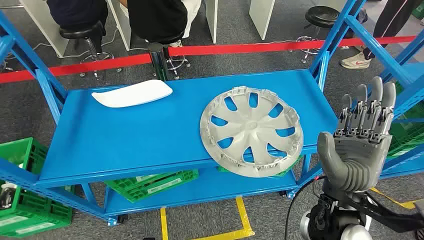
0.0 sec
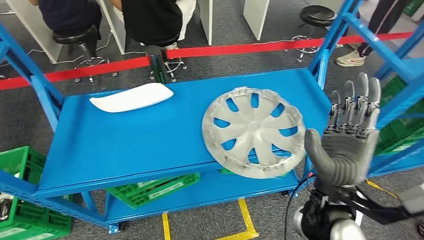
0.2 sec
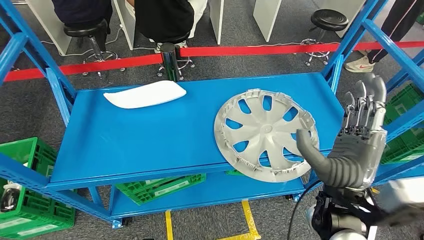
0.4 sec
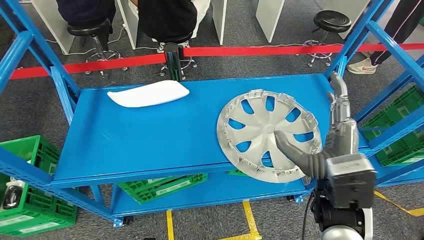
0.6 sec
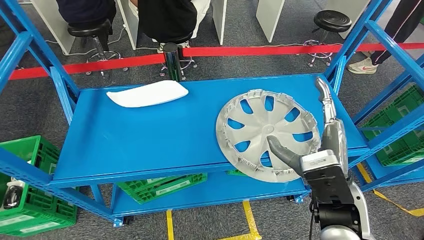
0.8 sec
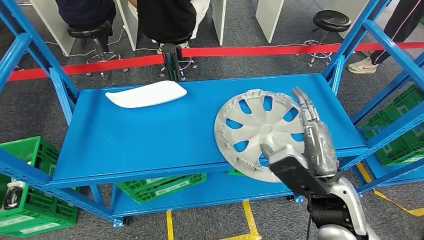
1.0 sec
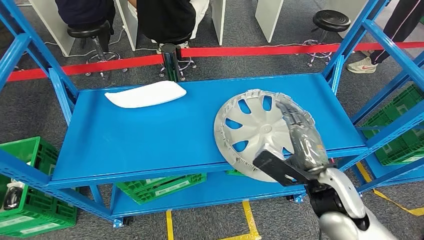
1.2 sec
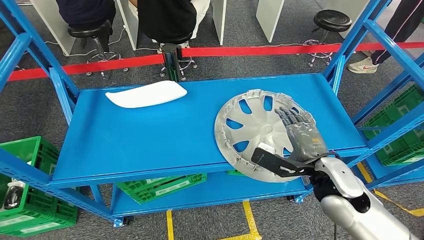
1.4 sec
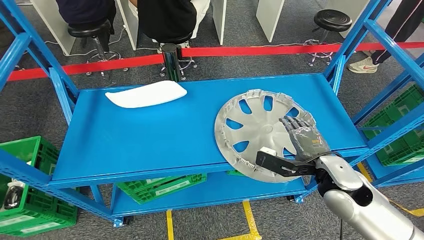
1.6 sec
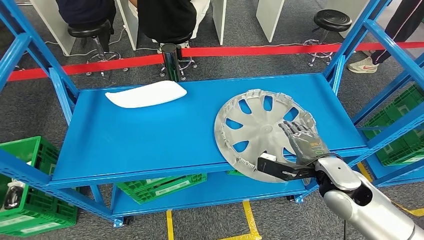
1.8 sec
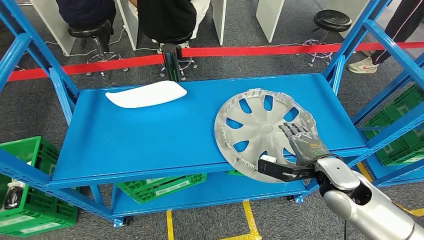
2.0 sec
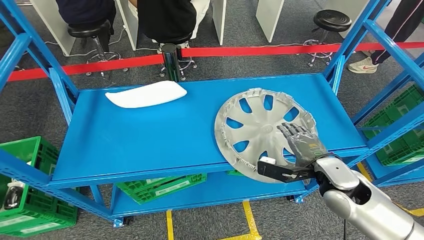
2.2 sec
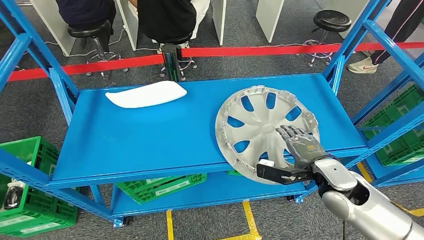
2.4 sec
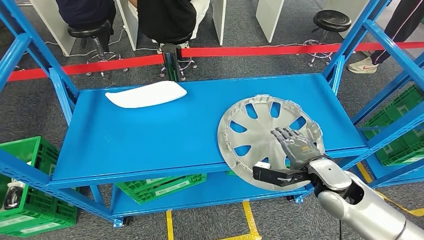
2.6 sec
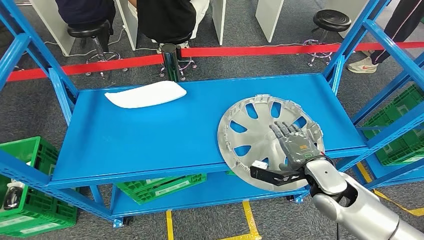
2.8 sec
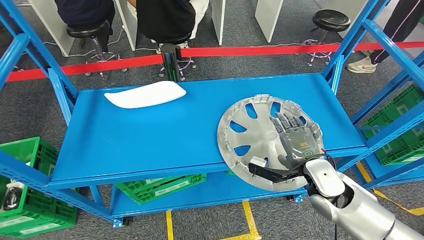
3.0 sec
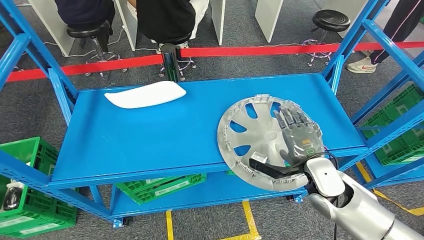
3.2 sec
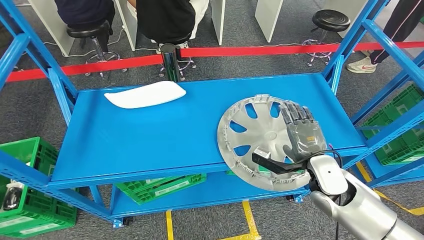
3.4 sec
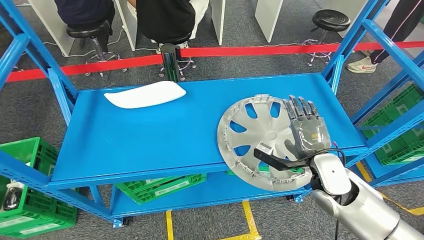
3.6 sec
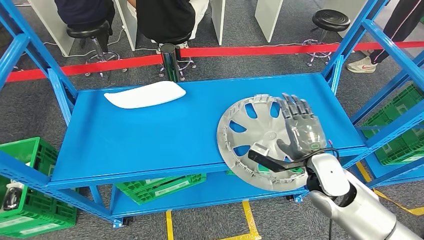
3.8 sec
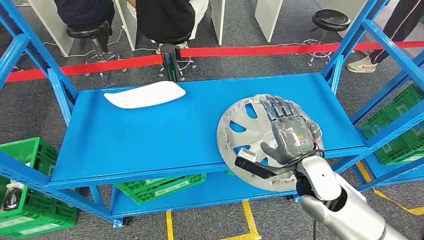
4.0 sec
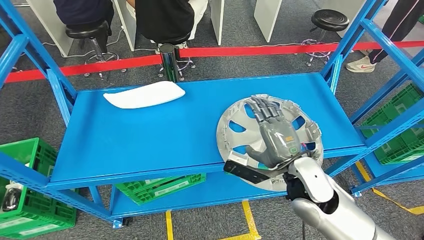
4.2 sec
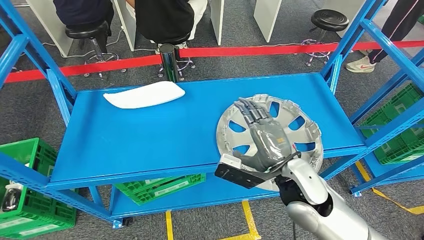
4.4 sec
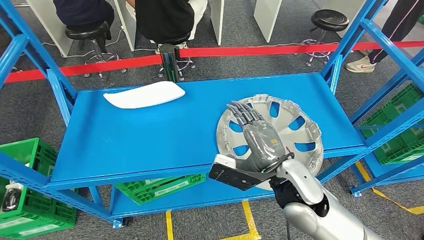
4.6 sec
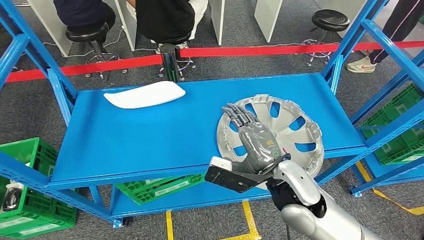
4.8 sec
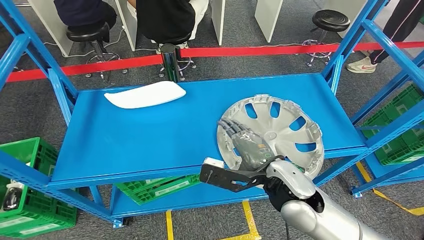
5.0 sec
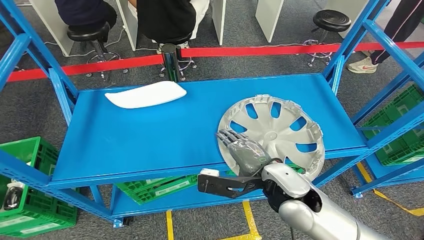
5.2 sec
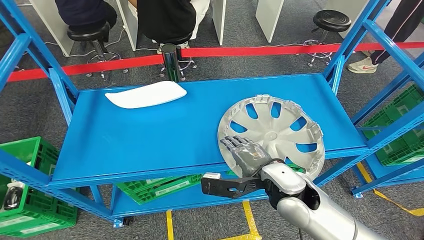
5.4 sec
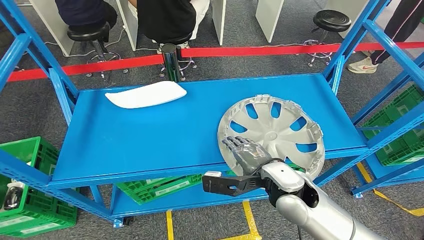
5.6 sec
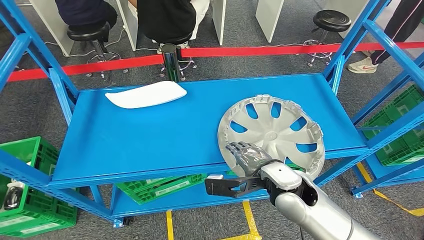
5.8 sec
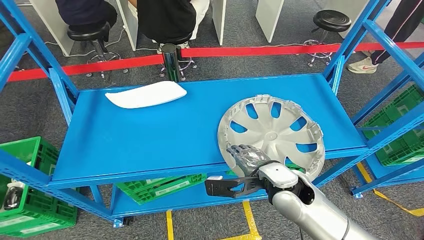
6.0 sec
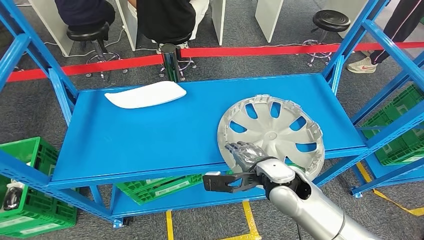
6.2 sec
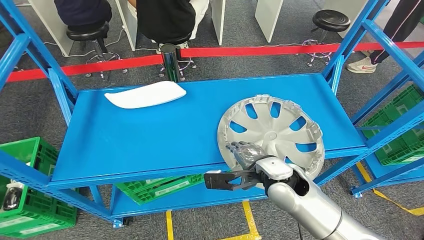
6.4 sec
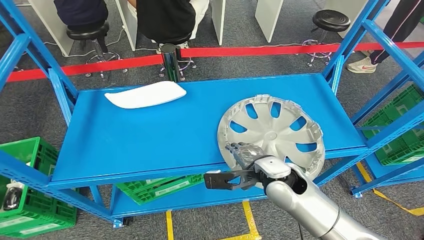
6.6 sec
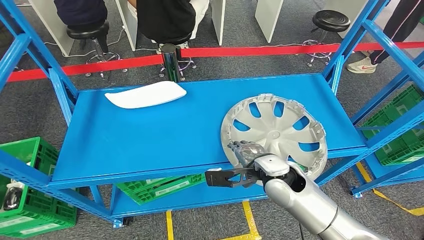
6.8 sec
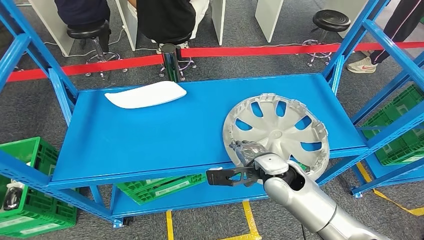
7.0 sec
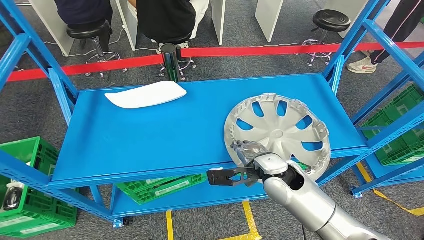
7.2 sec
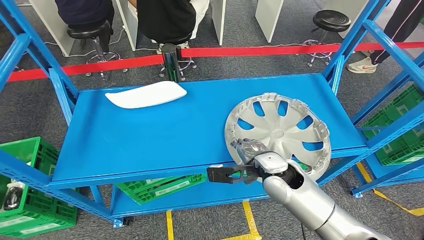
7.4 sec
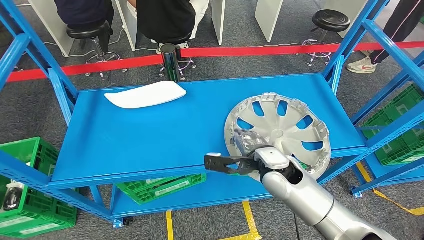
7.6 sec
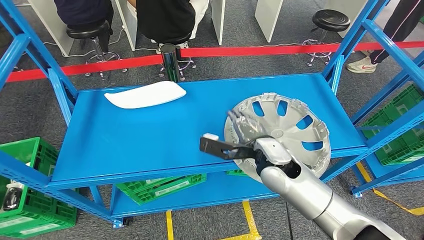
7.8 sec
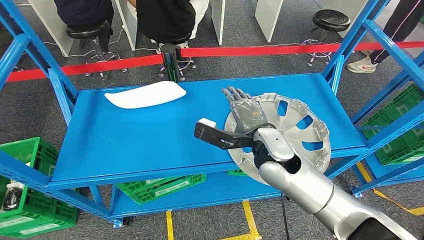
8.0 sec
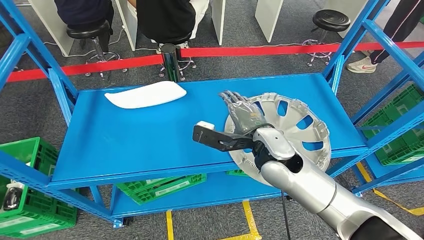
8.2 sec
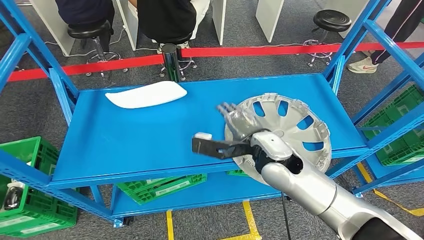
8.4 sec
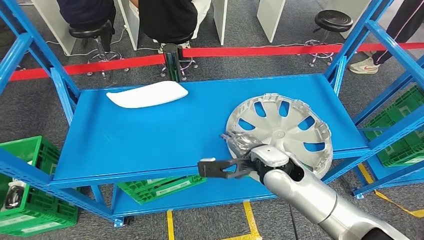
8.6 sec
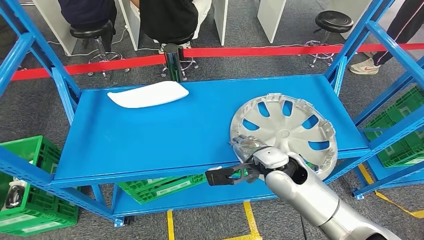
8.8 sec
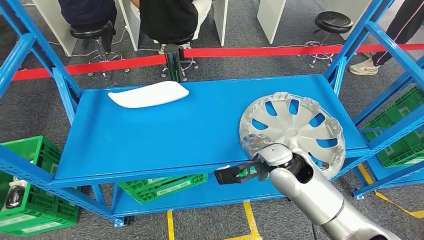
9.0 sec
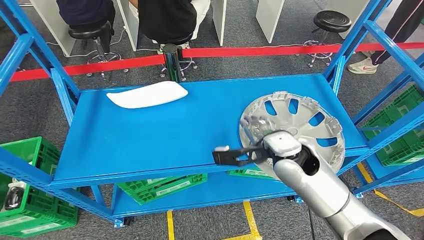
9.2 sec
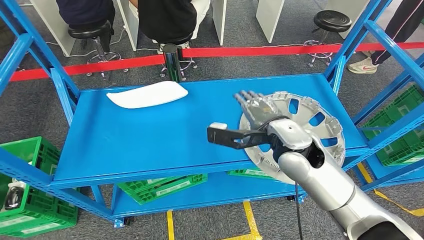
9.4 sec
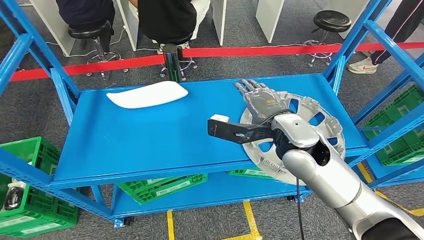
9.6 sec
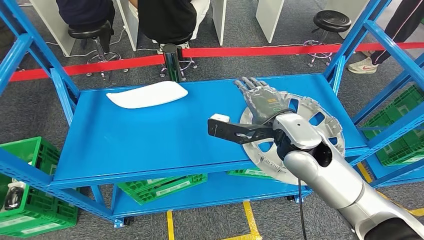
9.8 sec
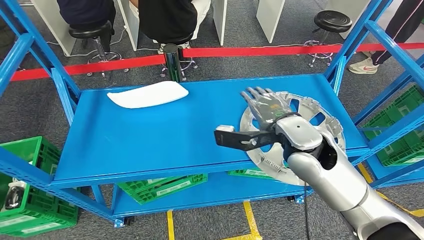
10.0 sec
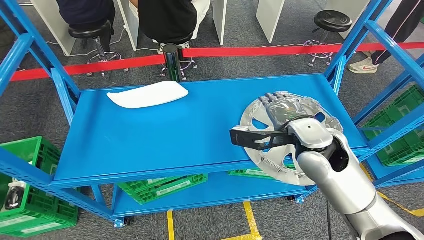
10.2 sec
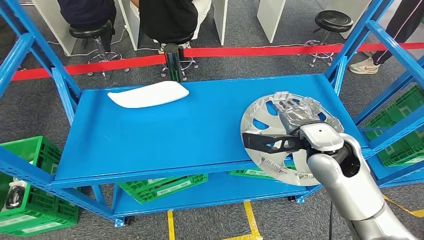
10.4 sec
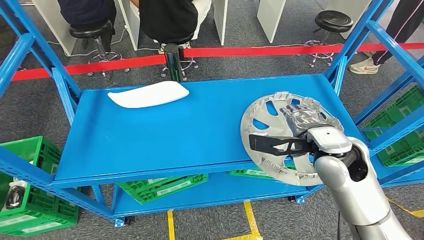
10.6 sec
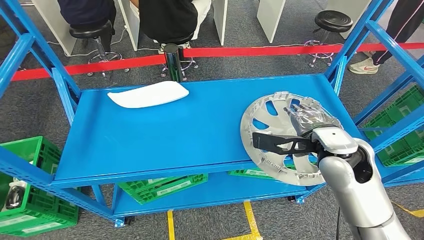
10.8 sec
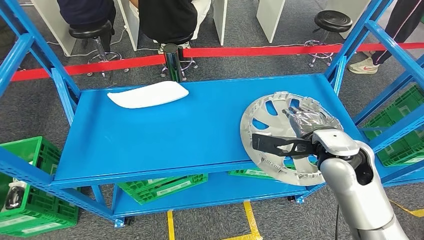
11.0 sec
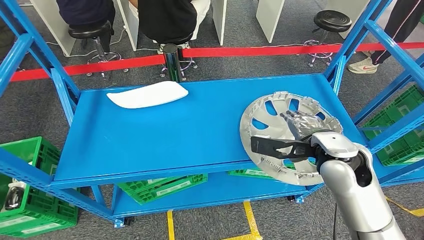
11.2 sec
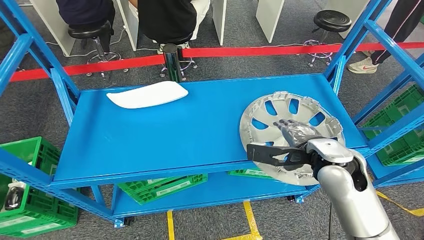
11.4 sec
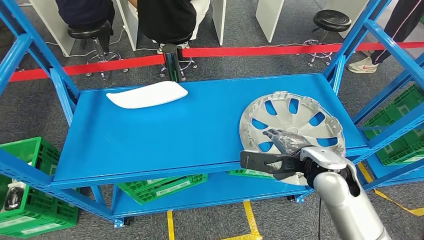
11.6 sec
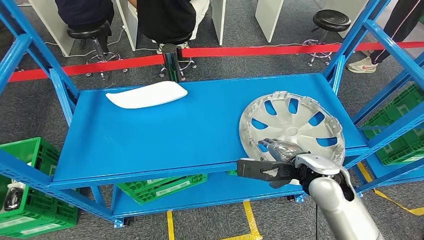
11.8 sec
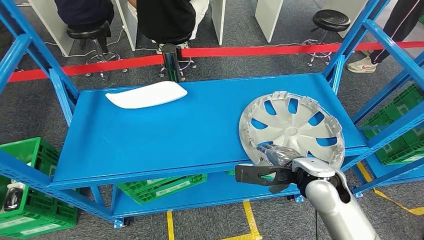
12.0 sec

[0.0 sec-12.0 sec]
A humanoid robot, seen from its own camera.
1.6 sec to 3.0 sec: The hands stay close to where they were, moving slightly.
3.0 sec to 4.4 sec: The right hand travels to the left and upward by roughly 10 cm.
6.0 sec to 7.6 sec: The hands stay close to where they were, moving slightly.
9.0 sec to 10.4 sec: The right hand shifts about 10 cm upward and to the right.

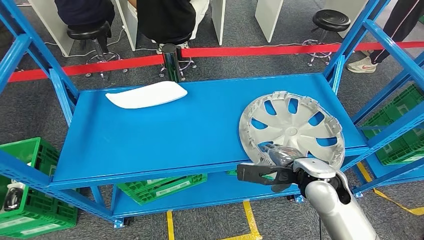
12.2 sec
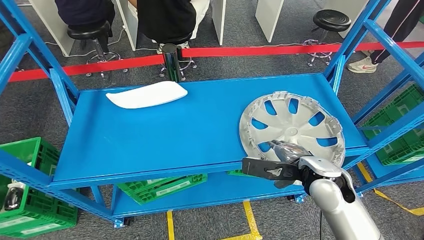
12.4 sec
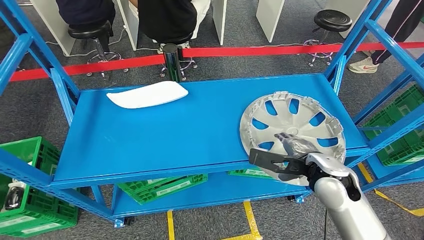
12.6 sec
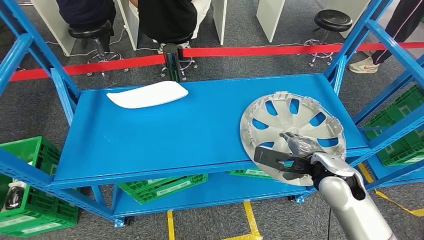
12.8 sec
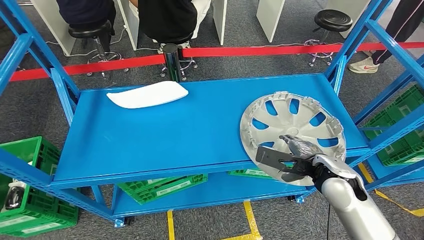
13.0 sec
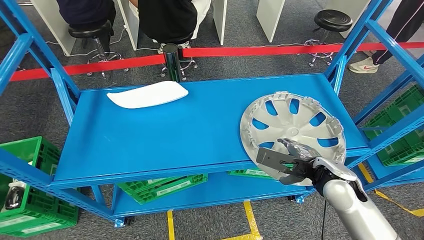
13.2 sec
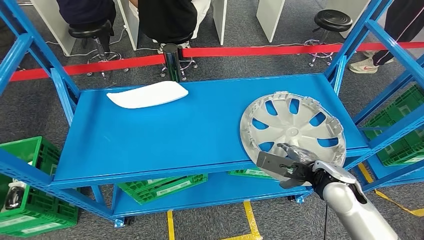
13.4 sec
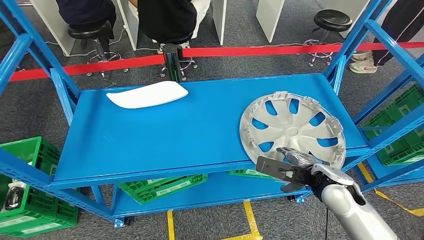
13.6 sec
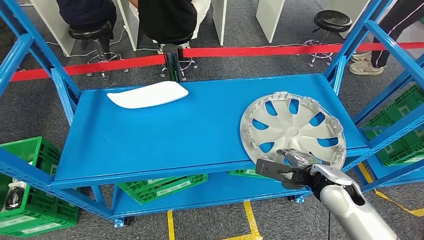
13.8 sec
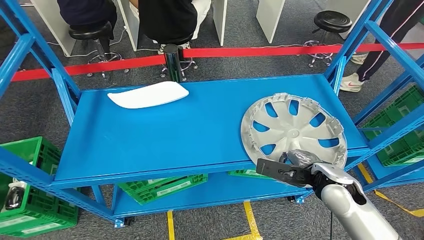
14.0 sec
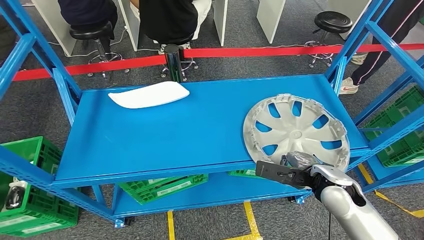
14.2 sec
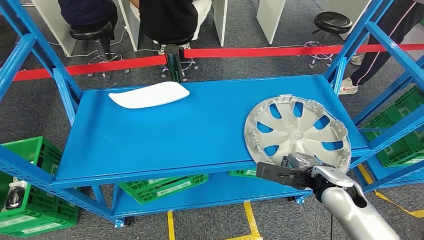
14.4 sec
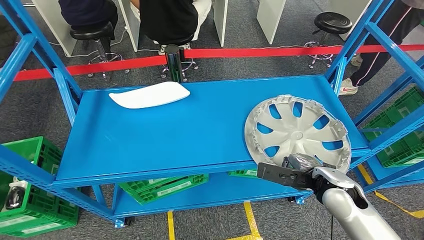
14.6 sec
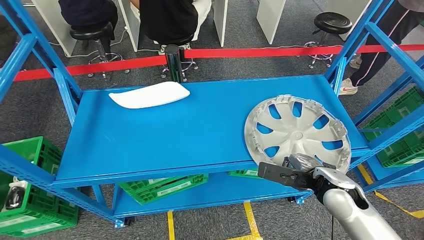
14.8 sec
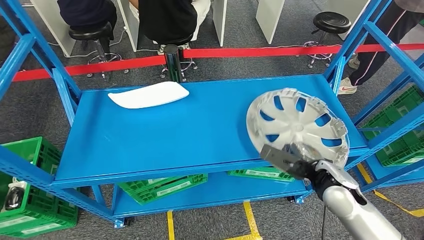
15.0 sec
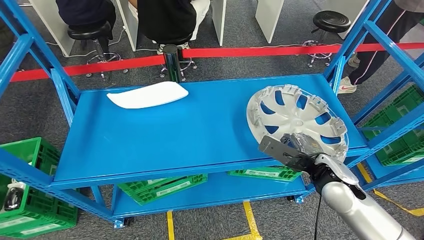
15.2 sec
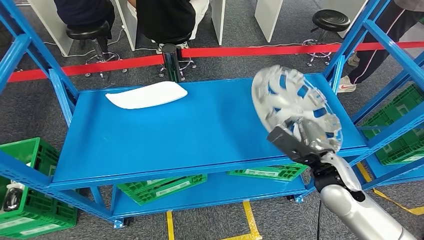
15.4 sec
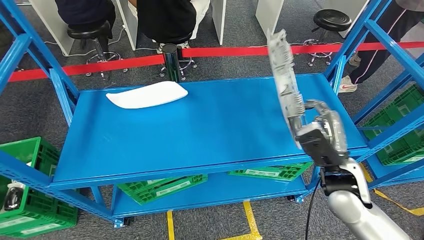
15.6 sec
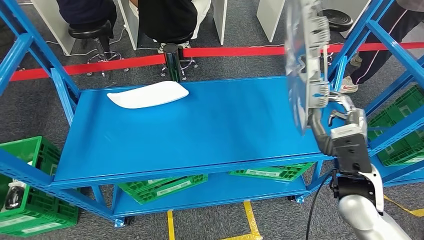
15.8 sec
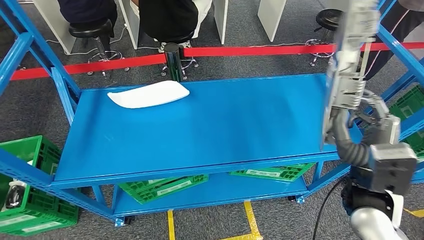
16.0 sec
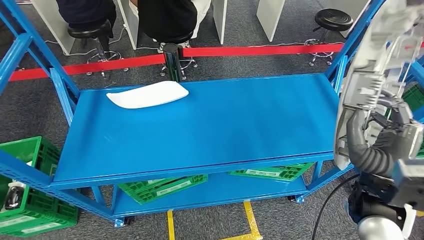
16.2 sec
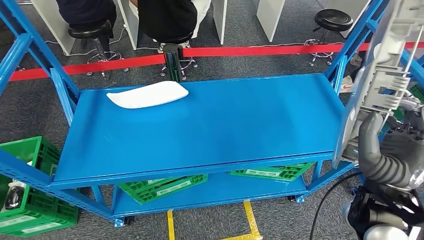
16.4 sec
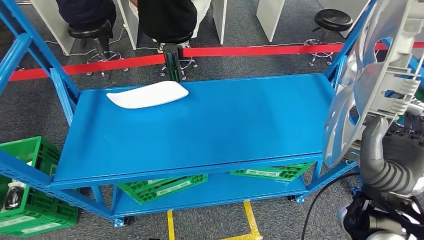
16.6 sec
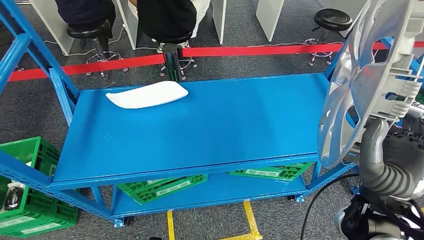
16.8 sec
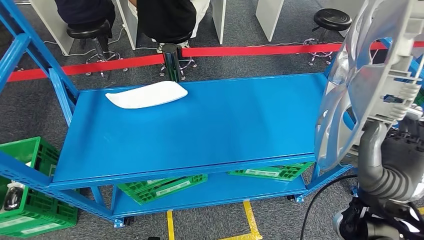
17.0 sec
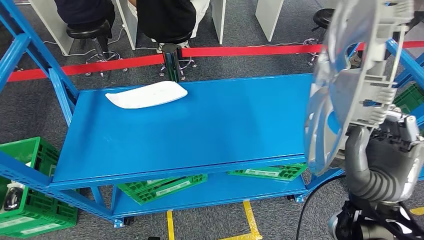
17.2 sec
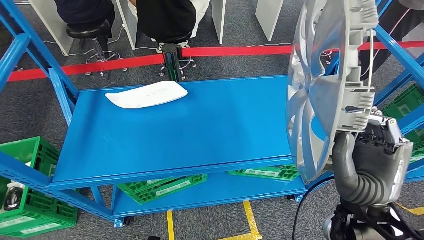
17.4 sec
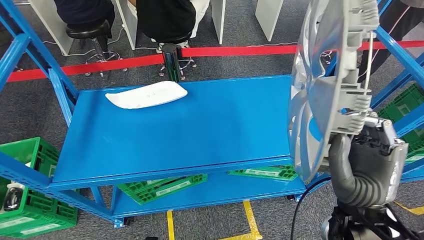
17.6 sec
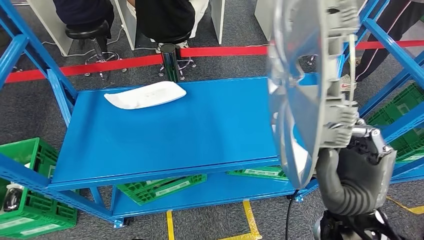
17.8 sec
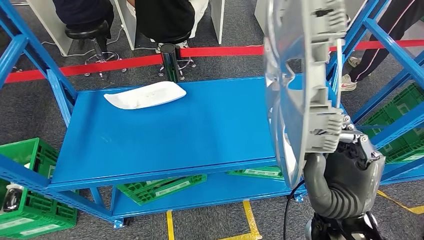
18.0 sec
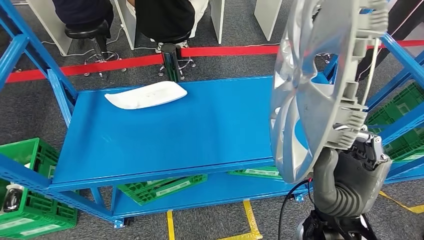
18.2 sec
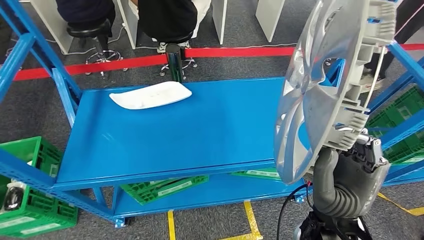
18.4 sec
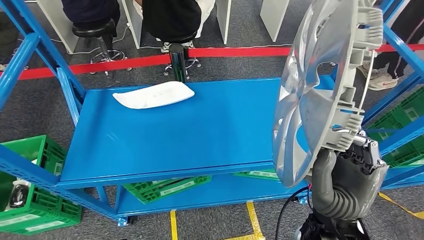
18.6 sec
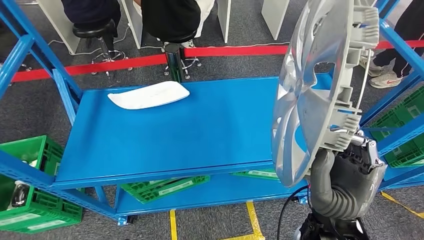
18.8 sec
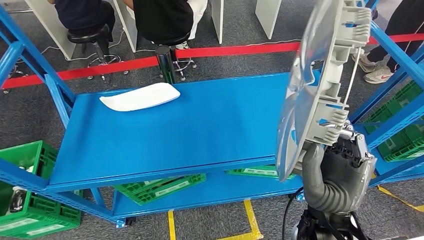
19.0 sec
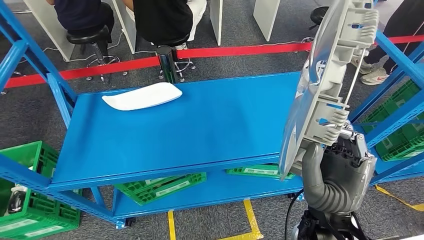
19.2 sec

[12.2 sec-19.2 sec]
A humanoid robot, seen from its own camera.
Step, 12.2 sec to 18.4 sec: Pick up the small parts from the shelf.
12.2 sec to 13.6 sec: The right hand is displaced to the right by roughly 5 cm.
13.6 sec to 15.0 sec: There are only small adjustments of the hands.
